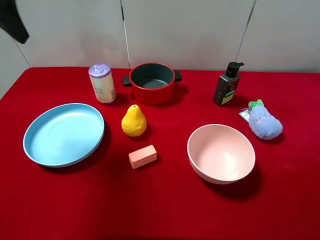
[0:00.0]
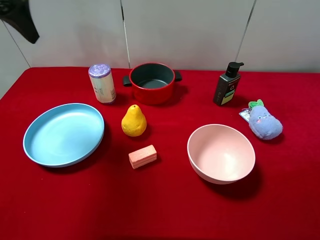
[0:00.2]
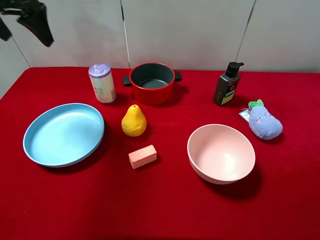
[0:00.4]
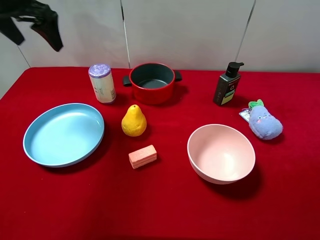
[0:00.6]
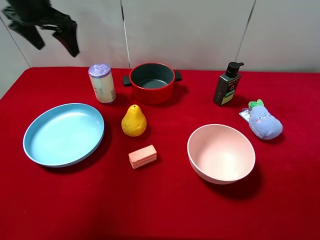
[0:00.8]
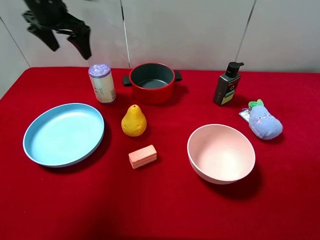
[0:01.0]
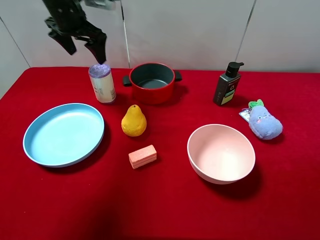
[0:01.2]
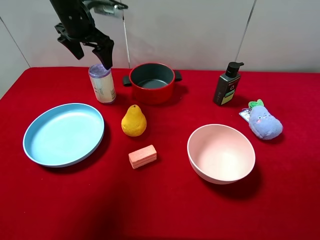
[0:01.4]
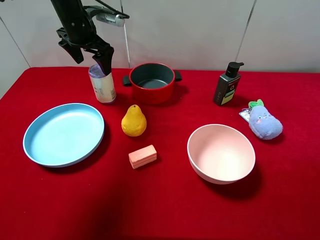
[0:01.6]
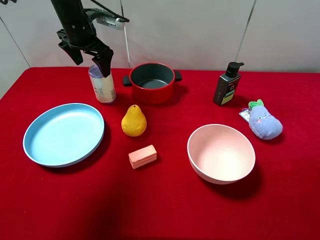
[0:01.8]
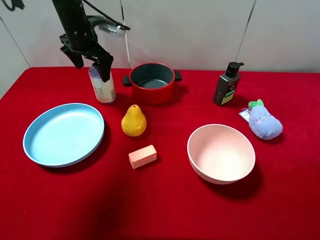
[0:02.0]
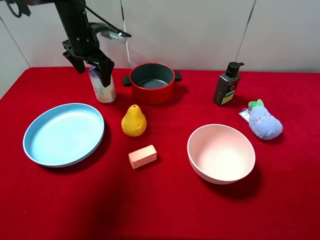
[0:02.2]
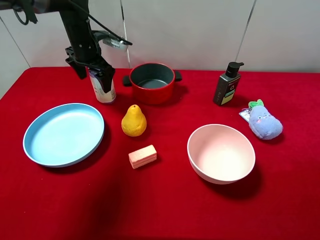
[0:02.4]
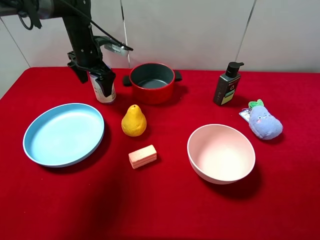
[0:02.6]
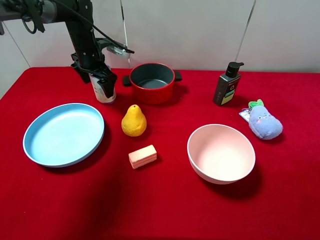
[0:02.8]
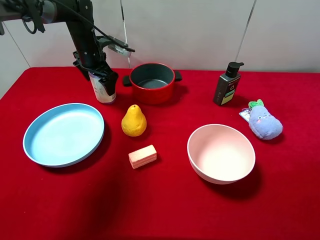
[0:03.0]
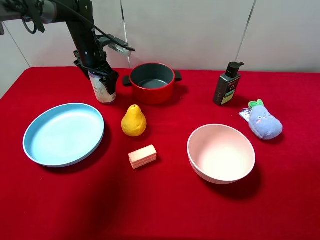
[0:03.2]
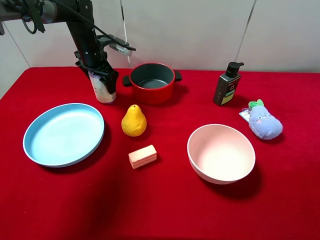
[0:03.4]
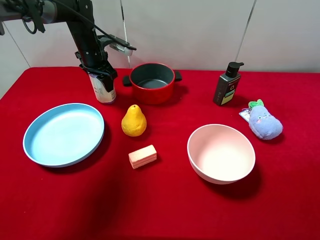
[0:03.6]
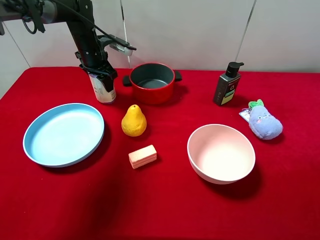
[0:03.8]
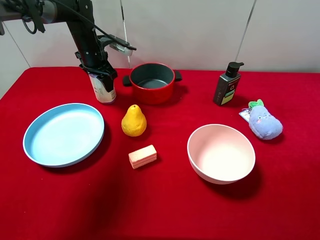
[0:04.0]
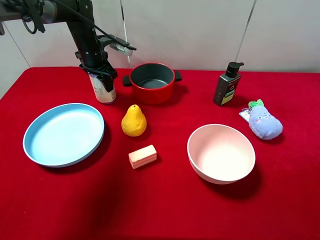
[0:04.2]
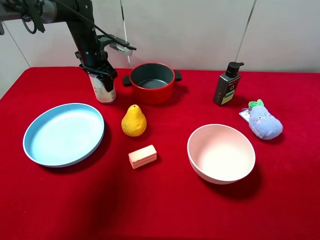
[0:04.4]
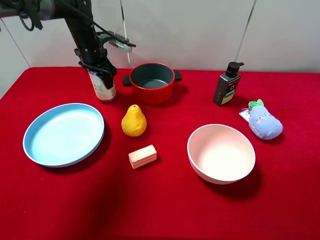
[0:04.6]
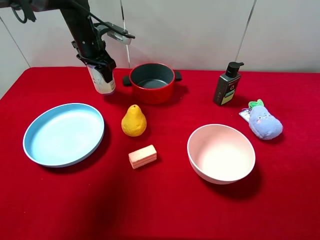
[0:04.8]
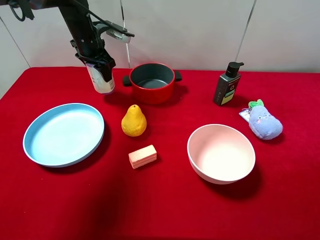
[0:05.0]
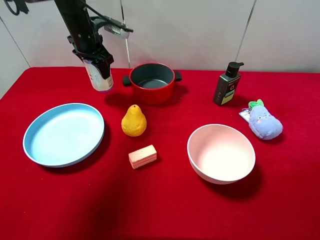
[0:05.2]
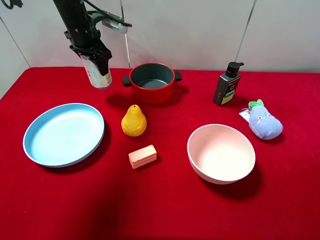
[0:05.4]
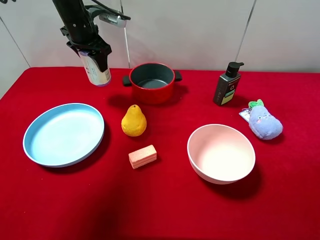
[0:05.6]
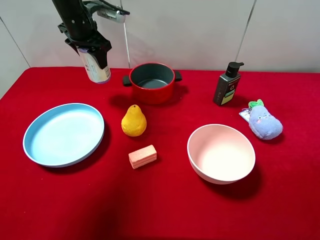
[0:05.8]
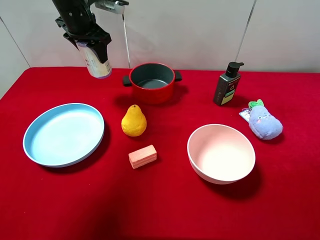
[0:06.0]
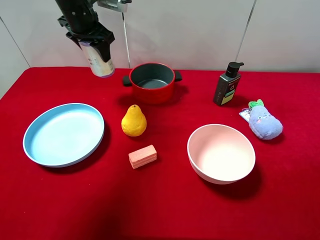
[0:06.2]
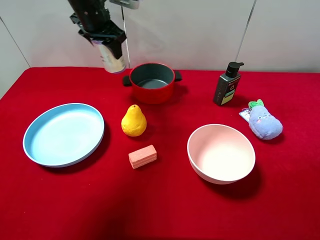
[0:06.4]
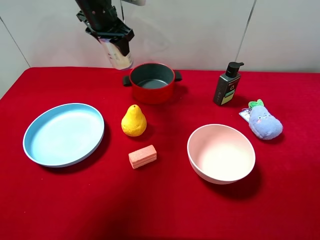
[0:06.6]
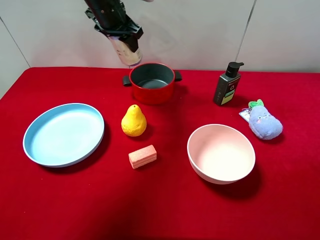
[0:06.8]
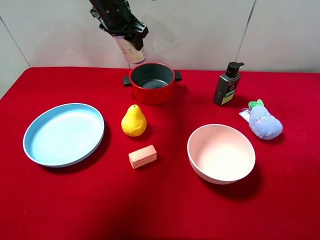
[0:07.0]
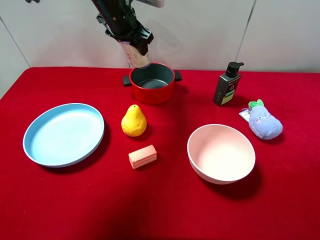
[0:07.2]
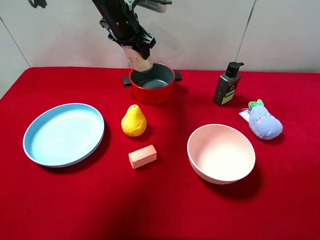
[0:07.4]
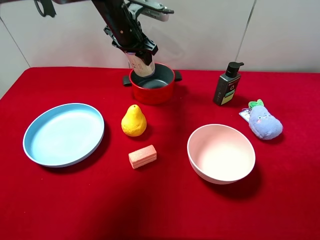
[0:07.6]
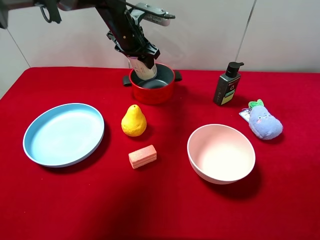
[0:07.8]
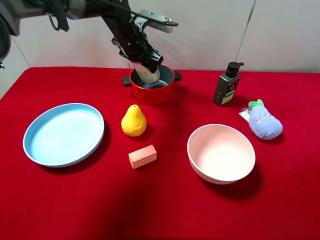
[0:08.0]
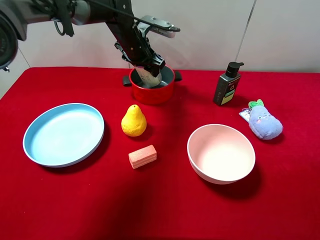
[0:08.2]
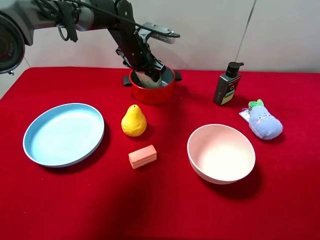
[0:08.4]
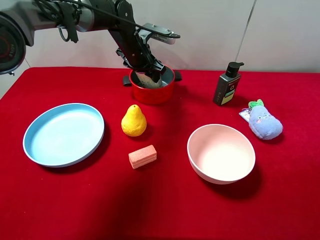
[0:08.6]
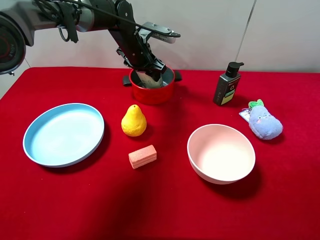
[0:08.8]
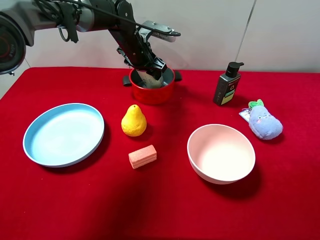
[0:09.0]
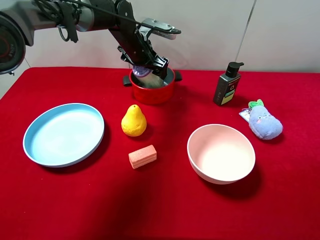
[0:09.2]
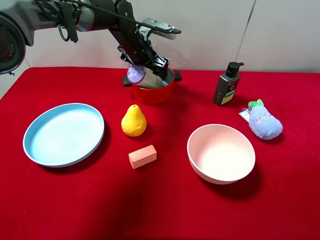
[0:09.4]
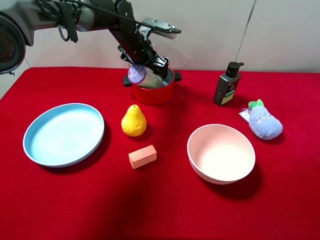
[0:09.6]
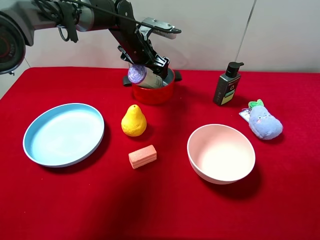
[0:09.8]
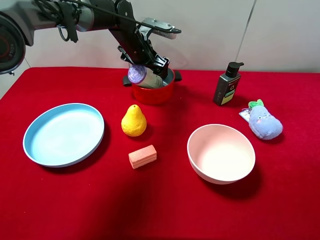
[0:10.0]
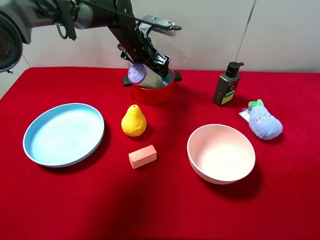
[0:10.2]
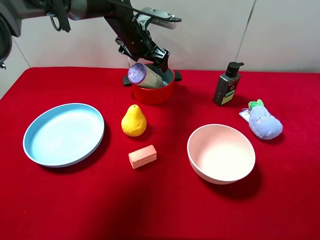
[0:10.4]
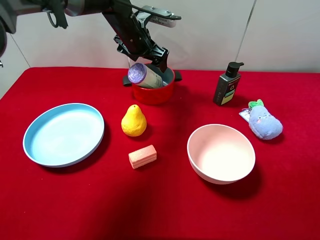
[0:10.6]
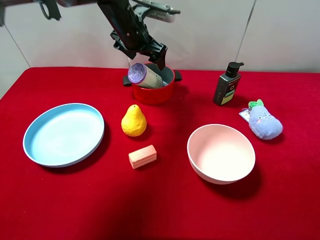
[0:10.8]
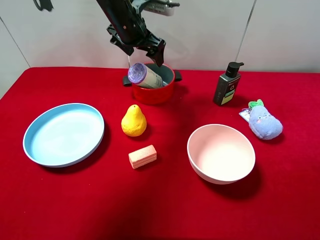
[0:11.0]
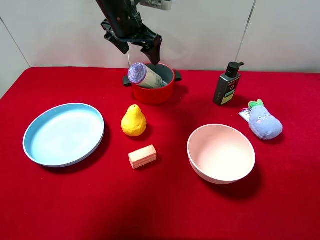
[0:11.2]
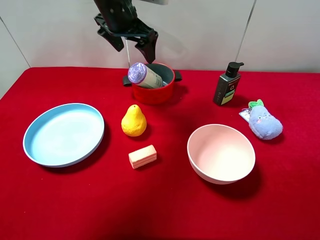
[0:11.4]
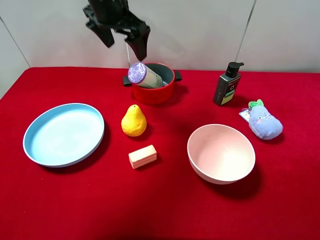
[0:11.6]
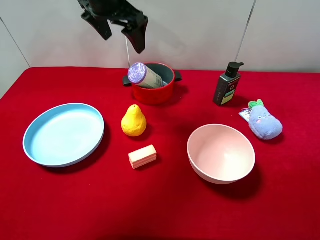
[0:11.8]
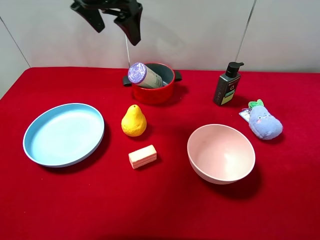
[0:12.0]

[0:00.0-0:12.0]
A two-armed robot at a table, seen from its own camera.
Task of the whole recording: pick up an item with a gripper and place it in a random container on the desktop.
0:00.0 to 0:01.6: The left gripper travels forward, downward and to the right by about 25 cm.
0:01.6 to 0:03.0: The left gripper moves downward, roughly 10 cm.
0:03.0 to 0:04.4: The left gripper closes up.
0:04.4 to 0:06.0: The left gripper moves upward, some 10 cm.
0:06.0 to 0:07.6: The left gripper heads to the right, covering some 10 cm.
0:07.6 to 0:09.0: The left gripper travels downward by some 5 cm.
0:09.0 to 0:10.4: The left gripper opens its fingers.
0:10.4 to 0:12.0: The left gripper moves upward and backward, some 15 cm.

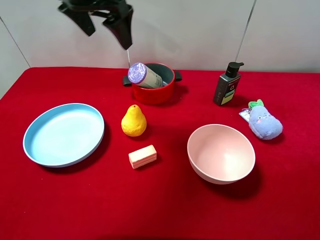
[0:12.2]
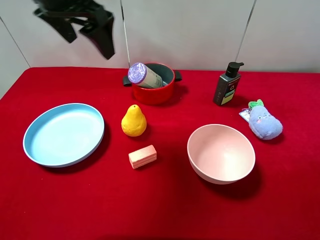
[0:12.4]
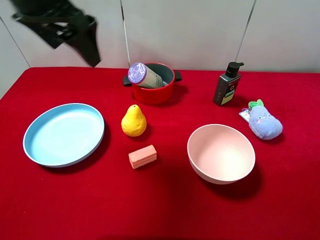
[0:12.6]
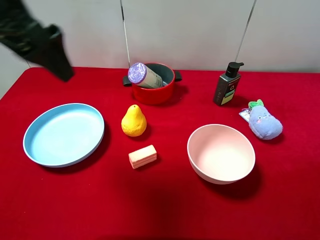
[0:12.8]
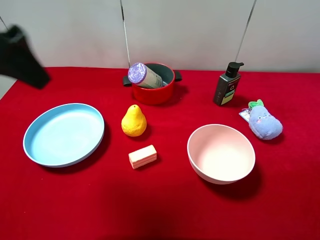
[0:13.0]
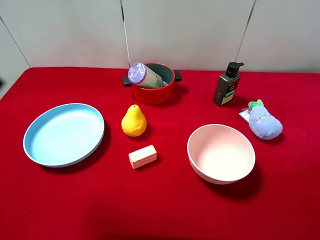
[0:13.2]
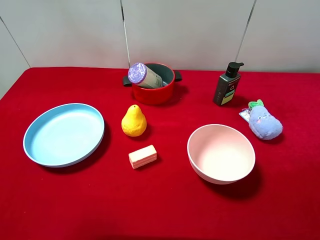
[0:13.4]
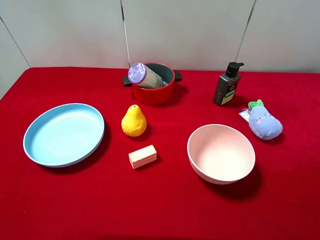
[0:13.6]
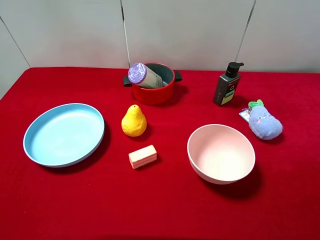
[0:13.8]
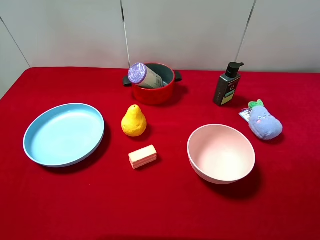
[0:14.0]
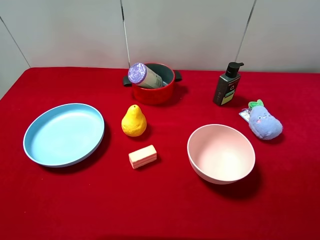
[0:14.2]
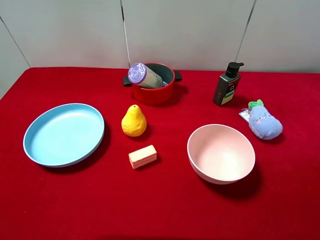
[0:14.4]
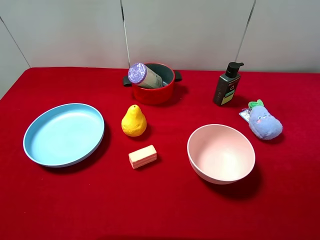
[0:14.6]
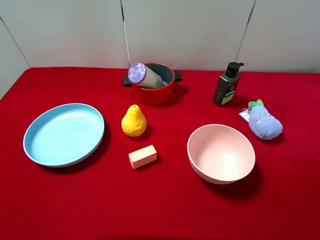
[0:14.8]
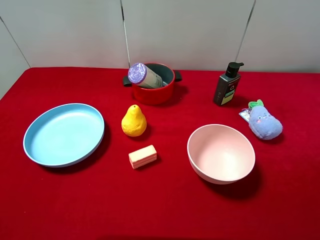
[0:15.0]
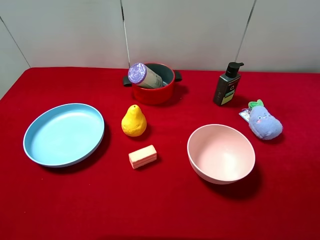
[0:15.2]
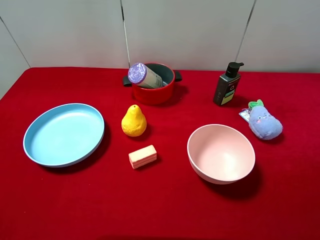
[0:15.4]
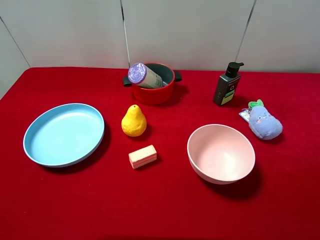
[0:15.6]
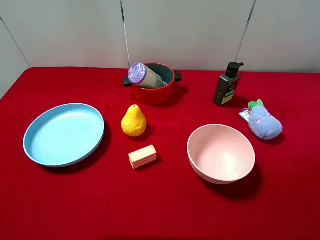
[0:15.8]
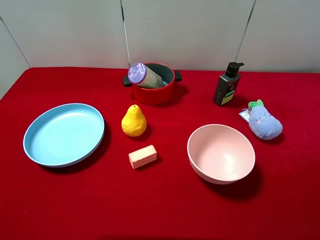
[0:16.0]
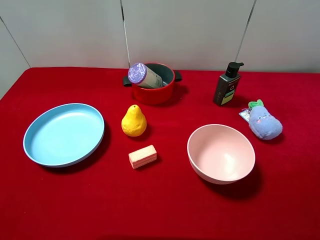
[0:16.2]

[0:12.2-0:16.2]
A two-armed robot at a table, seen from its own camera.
Task of the whole recording: pick up an item with a gripper and place it in a random container on the desktop.
0:12.2 to 0:13.6: The left gripper travels backward and to the left by approximately 35 cm.
0:14.8 to 0:16.2: Both grippers stay about where they are.
